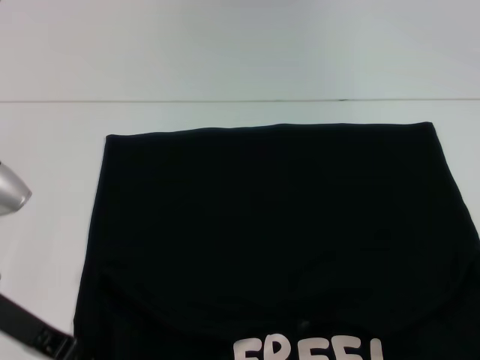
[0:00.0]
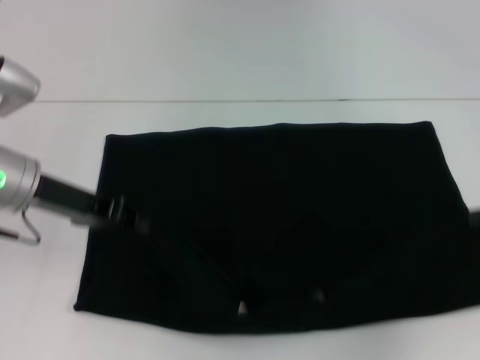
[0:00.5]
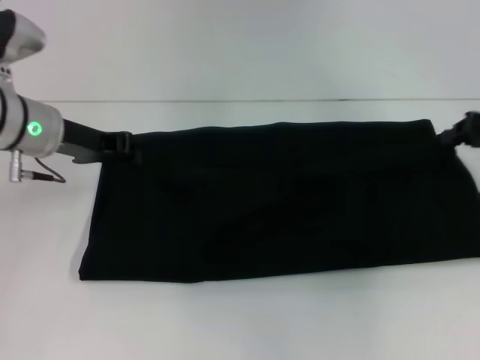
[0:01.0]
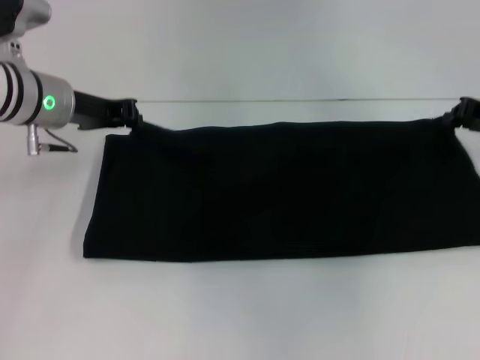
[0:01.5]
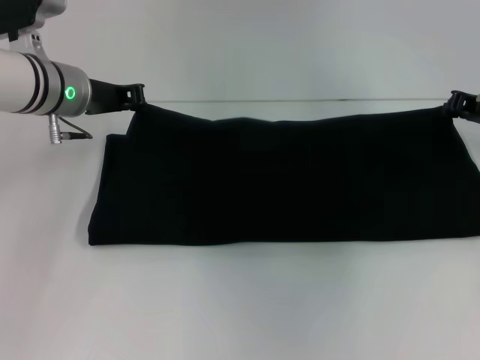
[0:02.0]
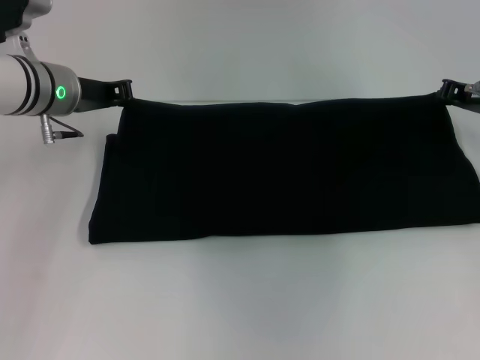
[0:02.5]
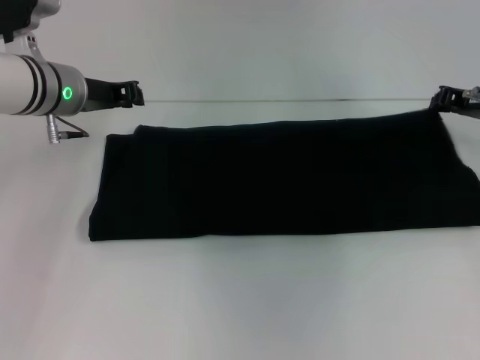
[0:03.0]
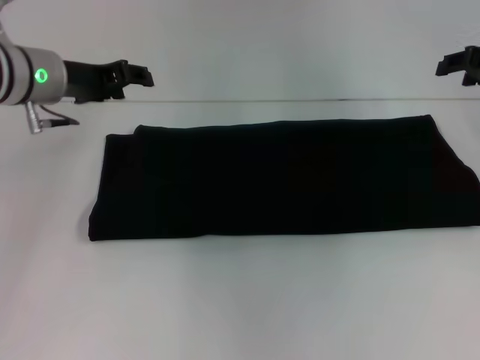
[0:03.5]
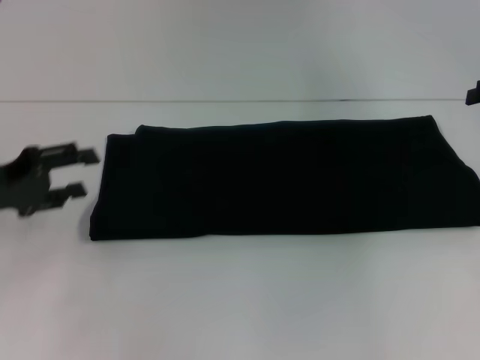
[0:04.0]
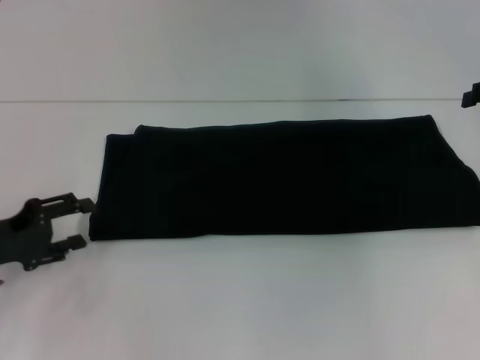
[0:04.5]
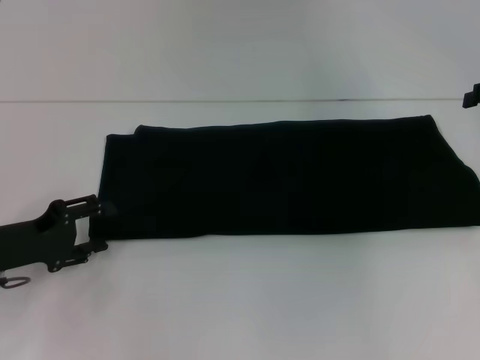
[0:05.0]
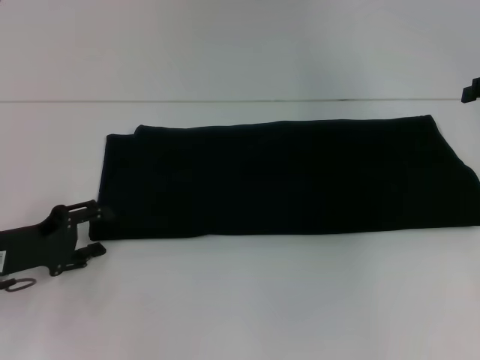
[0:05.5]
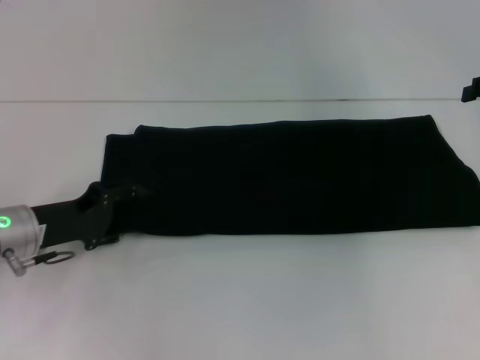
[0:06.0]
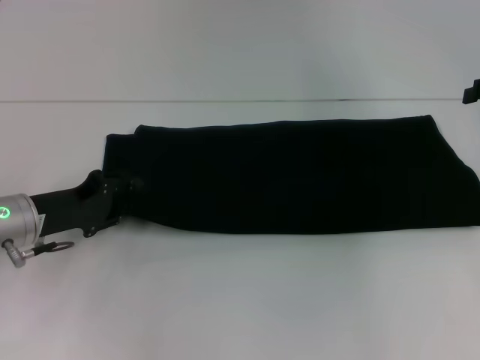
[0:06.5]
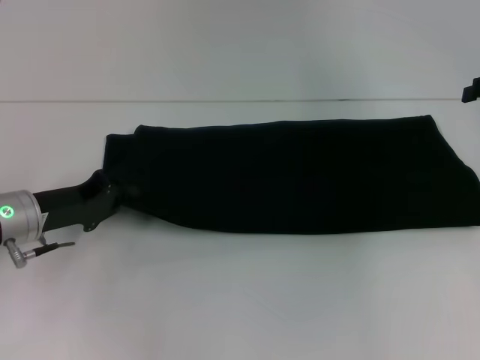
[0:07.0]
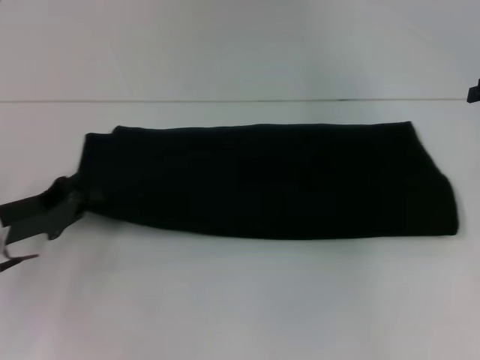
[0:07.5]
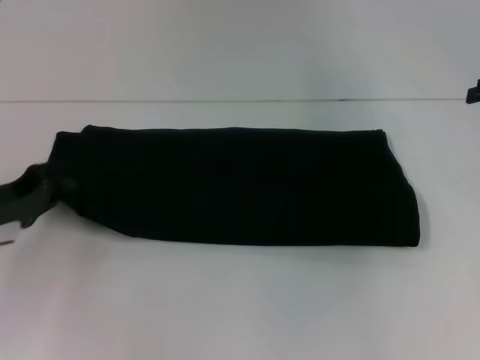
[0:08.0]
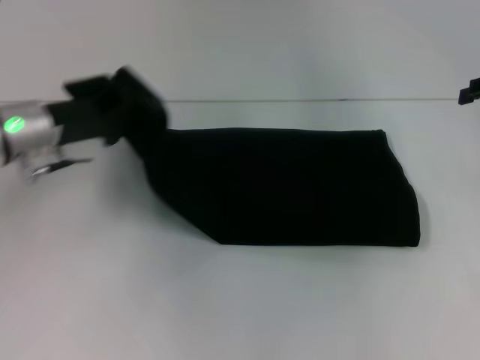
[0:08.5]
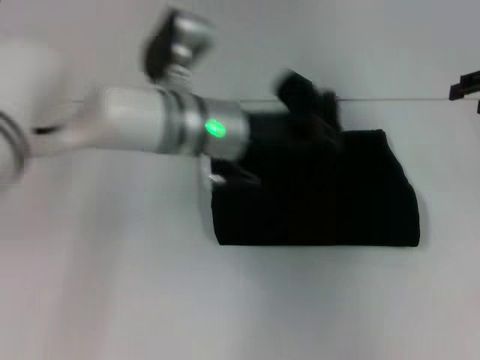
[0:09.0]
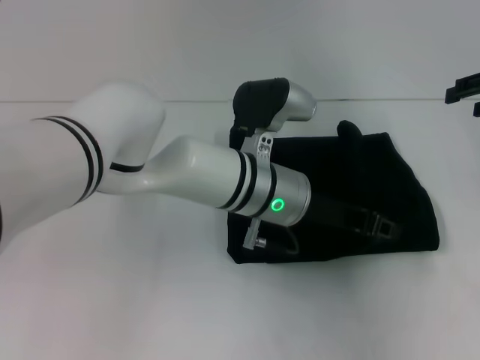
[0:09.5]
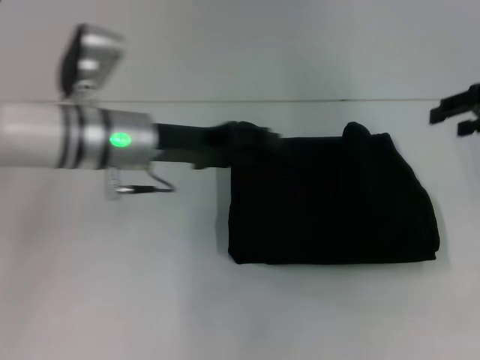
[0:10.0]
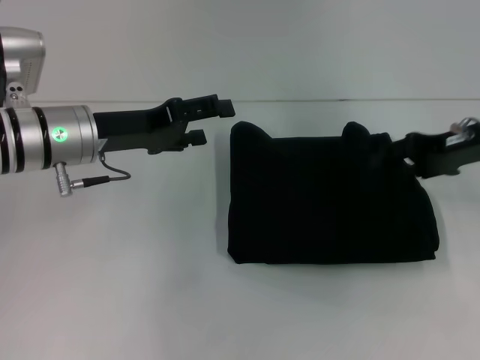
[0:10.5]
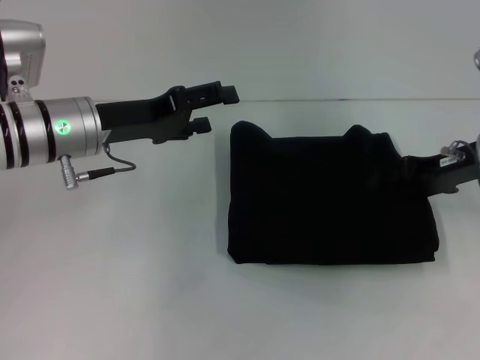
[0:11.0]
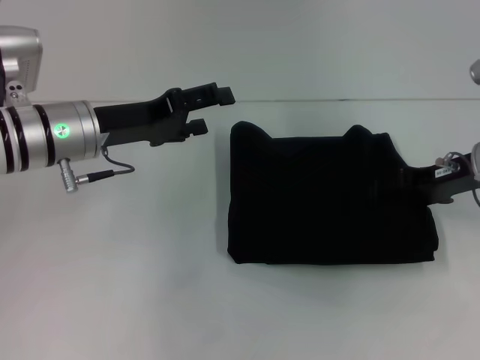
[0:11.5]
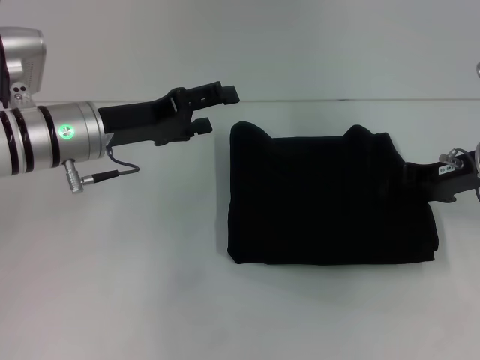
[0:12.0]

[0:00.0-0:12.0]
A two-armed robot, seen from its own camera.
Step, 0:00.0 to 0:03.0: Fold the clothes with your right hand.
Step, 0:00.0 to 0:09.5: Fold the clothes with your left hand.
0:00.0 to 0:02.0: Both grippers travel together forward, about 15 cm.
0:02.0 to 0:04.0: The left gripper travels backward and to the left by about 20 cm, and opens its fingers; the right gripper moves upward and to the right, some 10 cm, and opens up.
0:04.0 to 0:06.0: The left gripper travels downward and to the right by about 10 cm.
0:06.0 to 0:08.0: The left gripper goes roughly 5 cm to the left, and closes up.
0:08.0 to 0:10.0: The left gripper moves to the right, about 20 cm, and opens up.
0:10.0 to 0:12.0: The left gripper opens its fingers. The right gripper travels downward and to the left by some 10 cm.

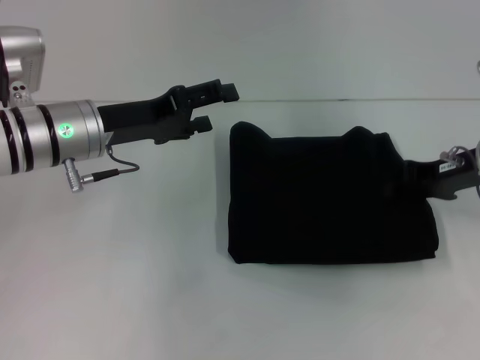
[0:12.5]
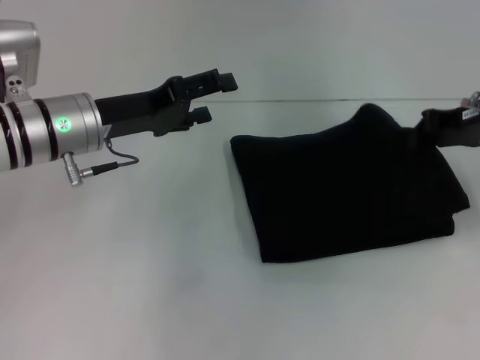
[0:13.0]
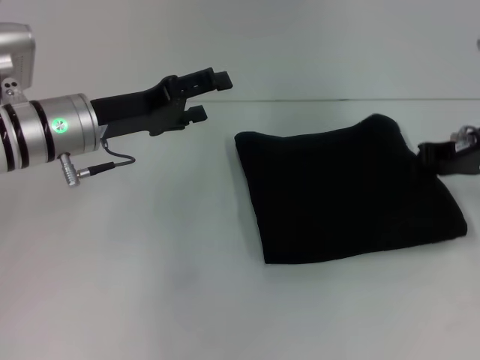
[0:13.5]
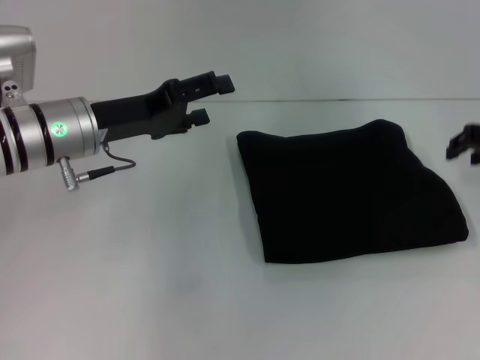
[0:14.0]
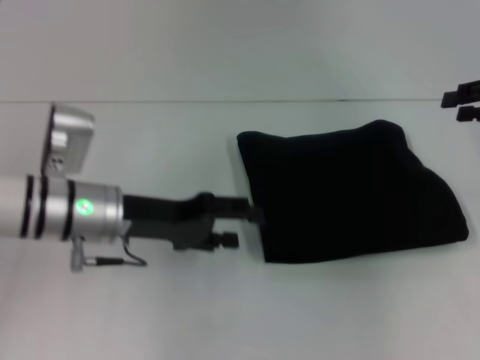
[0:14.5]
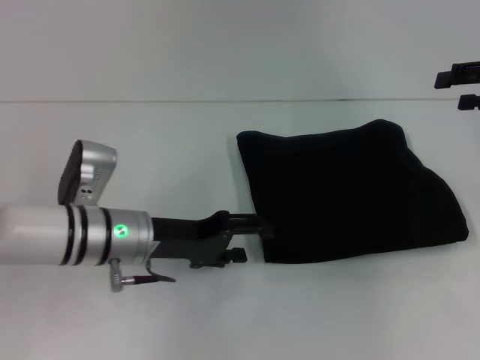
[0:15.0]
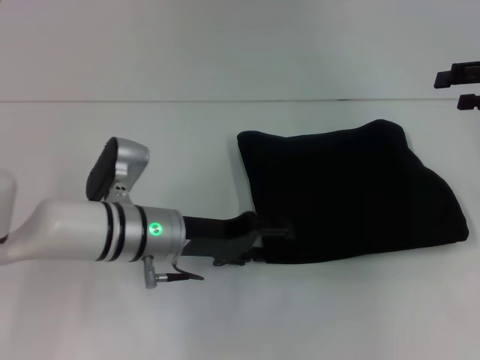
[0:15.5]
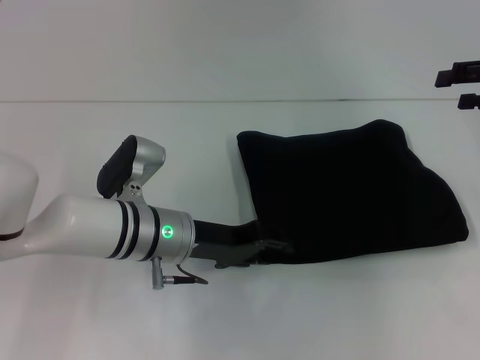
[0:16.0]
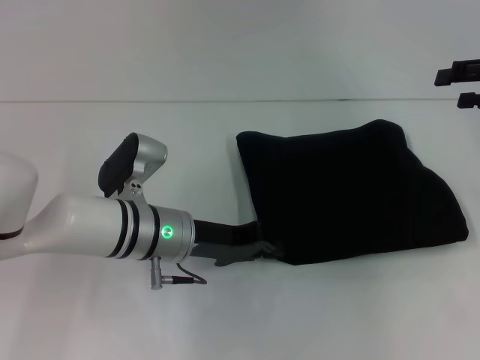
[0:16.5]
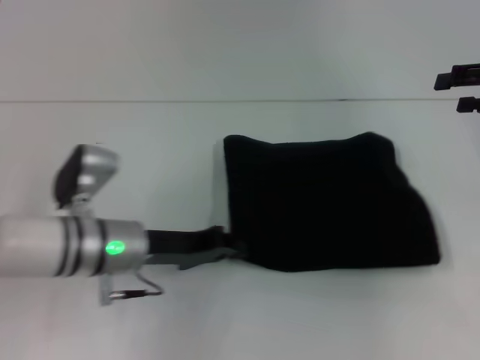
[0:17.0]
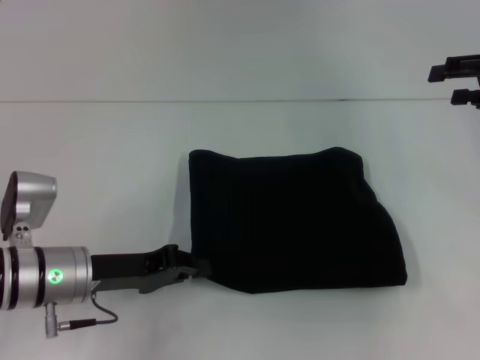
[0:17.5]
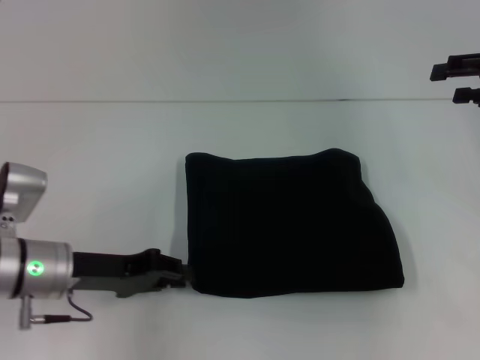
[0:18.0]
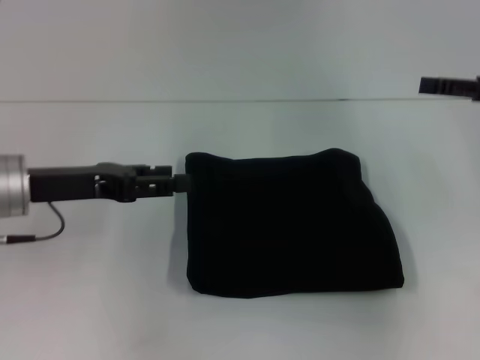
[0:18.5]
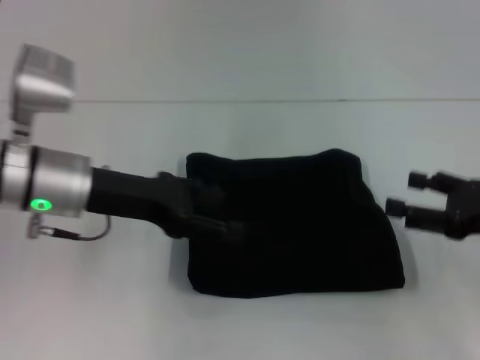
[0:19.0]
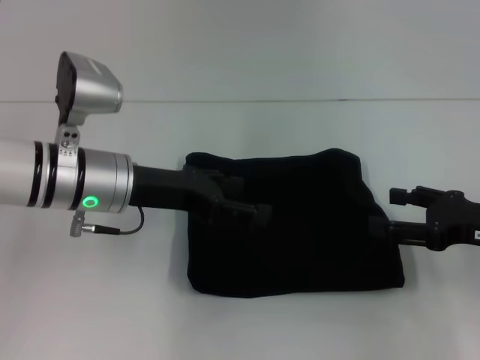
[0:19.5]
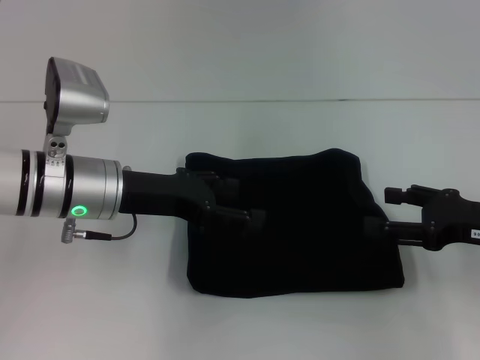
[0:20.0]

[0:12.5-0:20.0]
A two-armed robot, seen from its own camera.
0:12.5 to 0:14.5: The right gripper heads to the right and upward, covering some 10 cm, and opens its fingers. The left gripper shifts by approximately 5 cm.
0:14.5 to 0:16.5: The left gripper is displaced to the right by approximately 5 cm, and closes.
0:16.5 to 0:18.0: The left gripper travels to the left by some 10 cm.
0:18.0 to 0:20.0: The right gripper moves backward and downward, about 15 cm. Meanwhile the left gripper shifts some 10 cm upward and to the right, and opens its fingers.

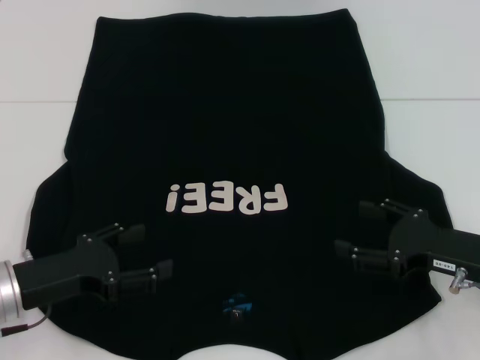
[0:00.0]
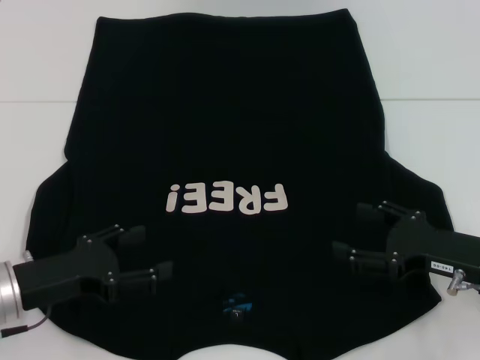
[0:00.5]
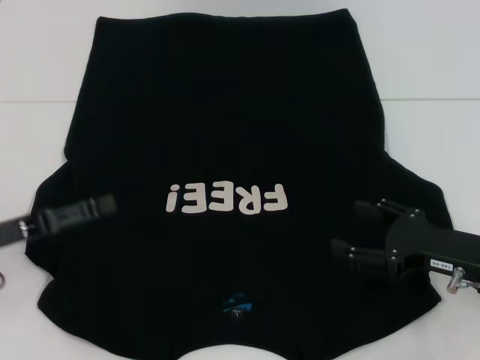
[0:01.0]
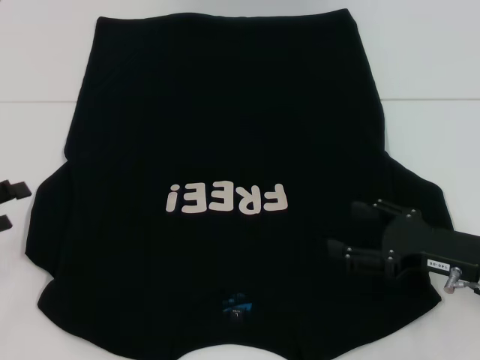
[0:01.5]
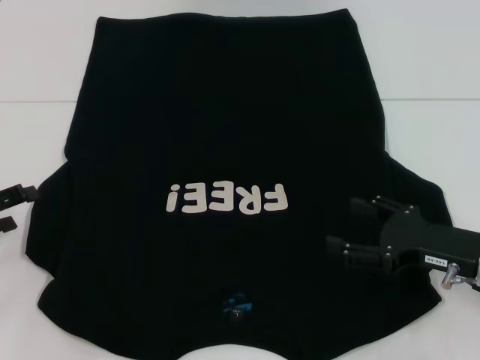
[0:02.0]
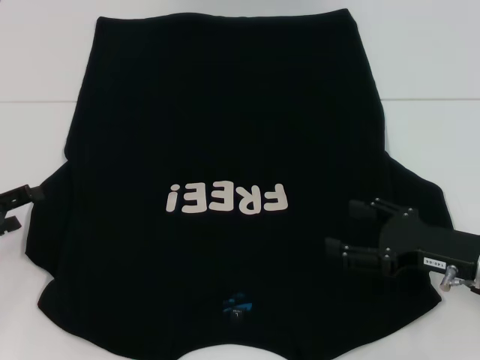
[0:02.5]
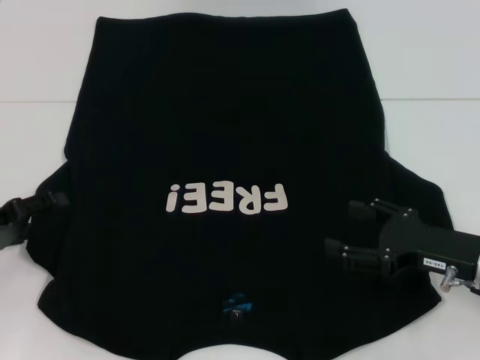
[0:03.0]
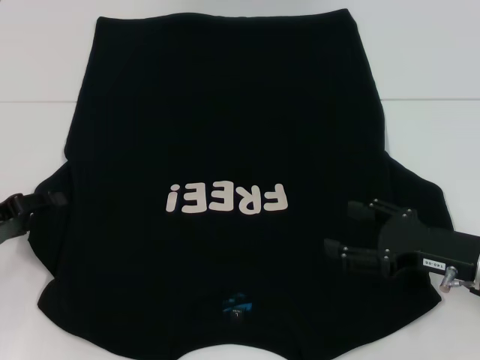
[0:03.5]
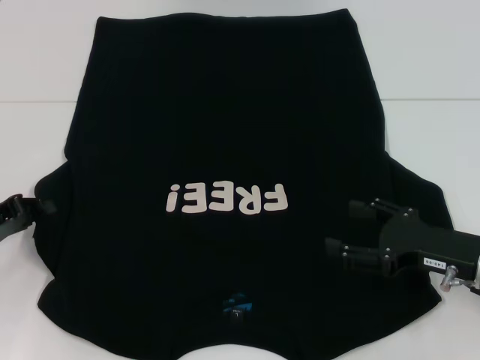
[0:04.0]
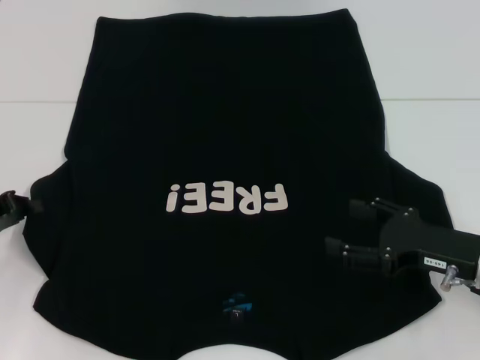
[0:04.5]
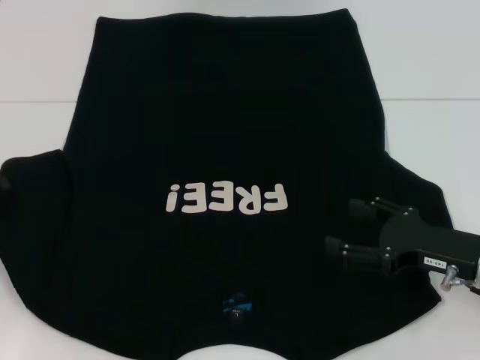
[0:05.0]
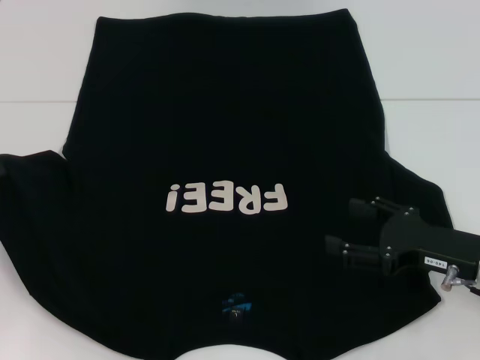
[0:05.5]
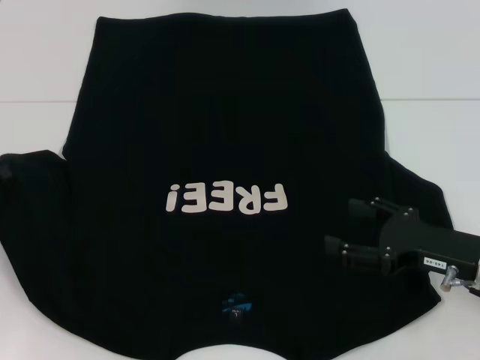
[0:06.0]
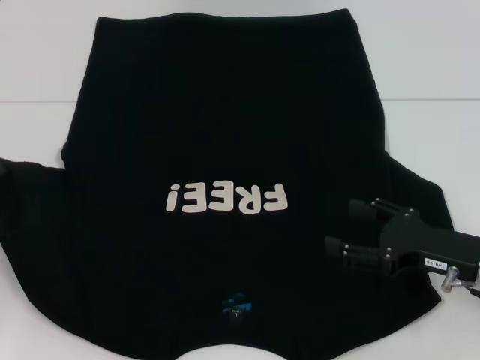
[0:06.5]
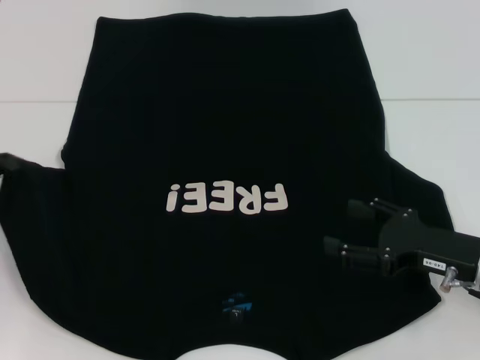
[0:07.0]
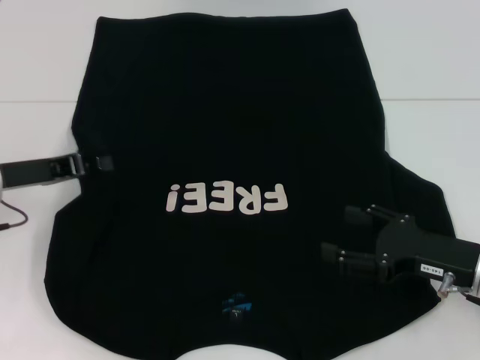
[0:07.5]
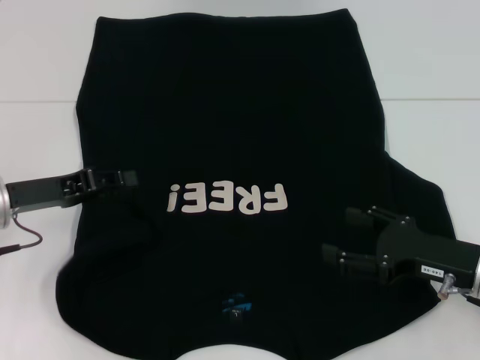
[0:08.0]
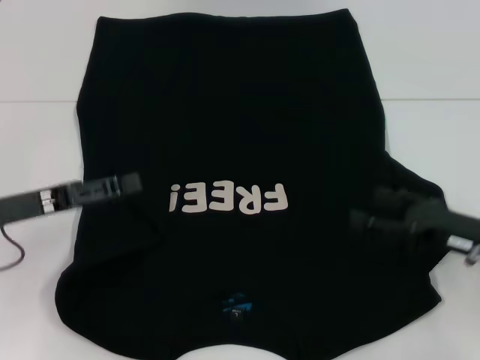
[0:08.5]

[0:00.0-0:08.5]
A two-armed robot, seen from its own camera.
Step, 0:00.0 to 0:08.5: Fold the bottom left sleeve with your left hand.
0:00.0 to 0:02.0: The left gripper travels to the left by about 10 cm.
0:02.0 to 0:04.0: The left gripper closes up.
0:04.0 to 0:06.5: The left gripper closes its fingers.
0:06.5 to 0:08.5: The left gripper goes about 10 cm to the right, and opens.
